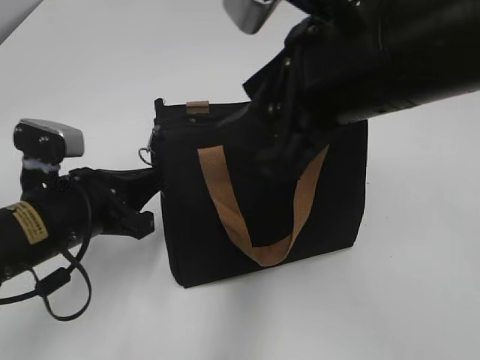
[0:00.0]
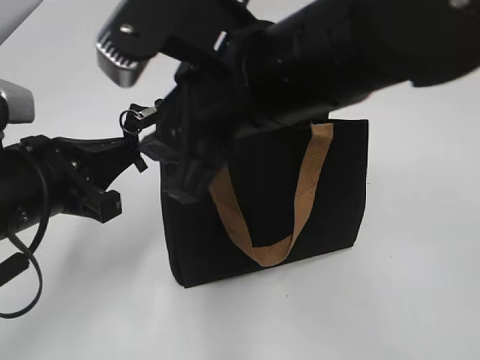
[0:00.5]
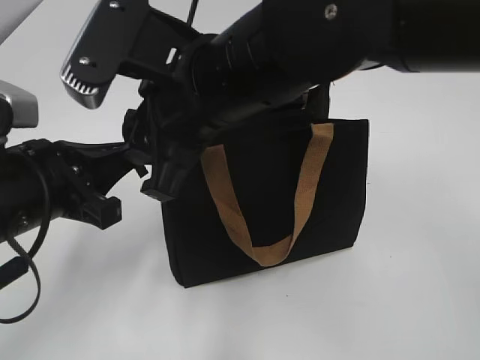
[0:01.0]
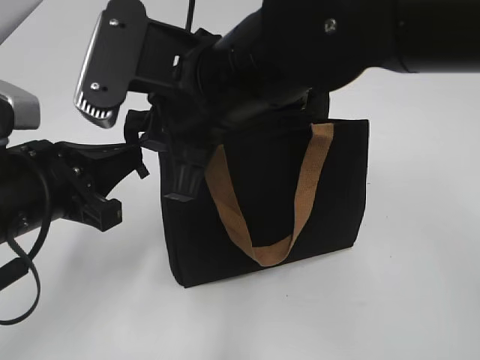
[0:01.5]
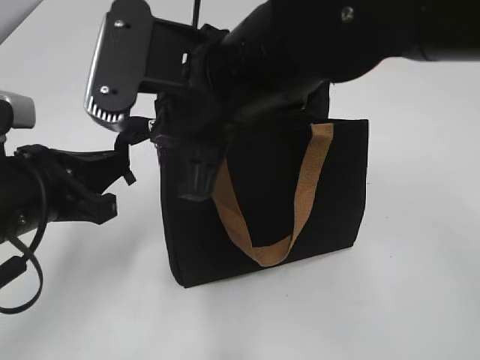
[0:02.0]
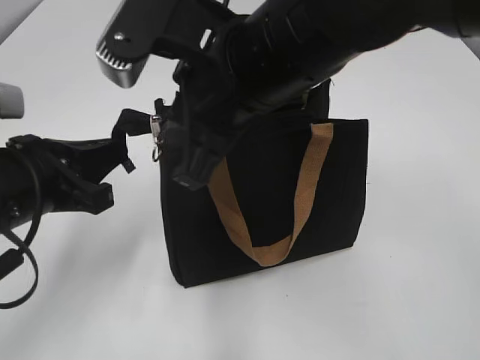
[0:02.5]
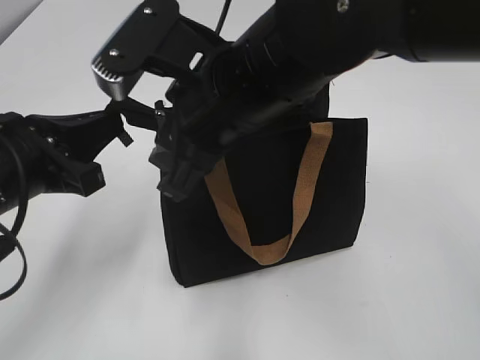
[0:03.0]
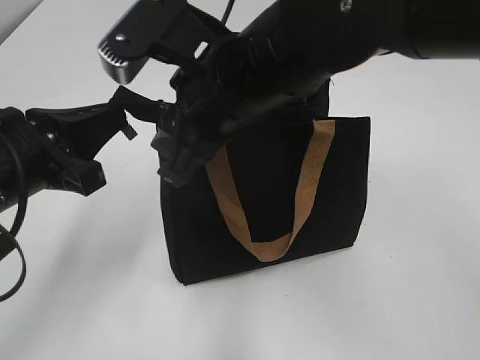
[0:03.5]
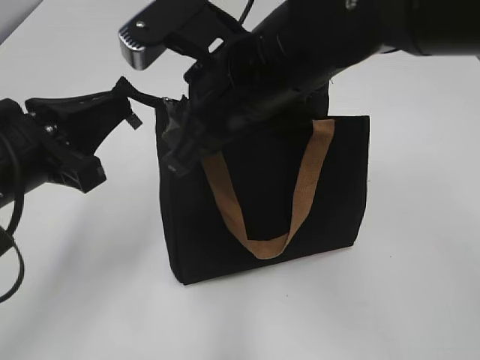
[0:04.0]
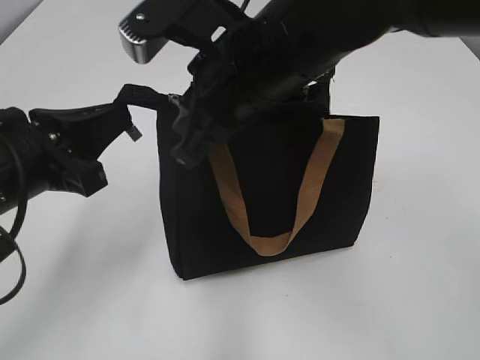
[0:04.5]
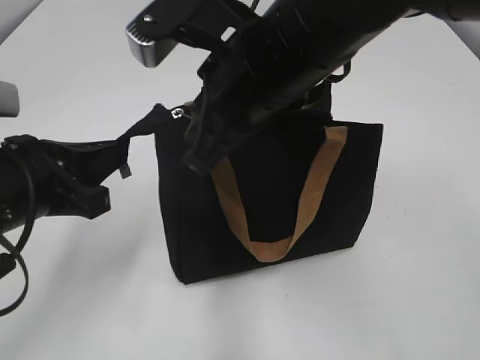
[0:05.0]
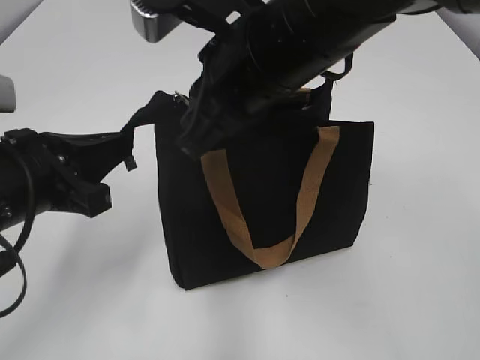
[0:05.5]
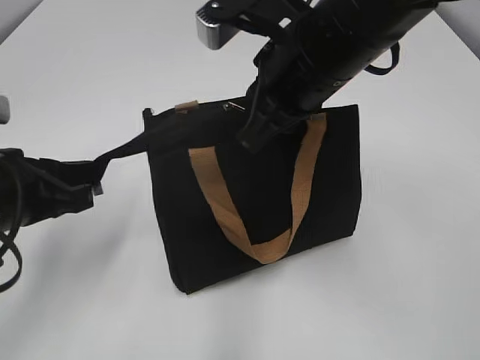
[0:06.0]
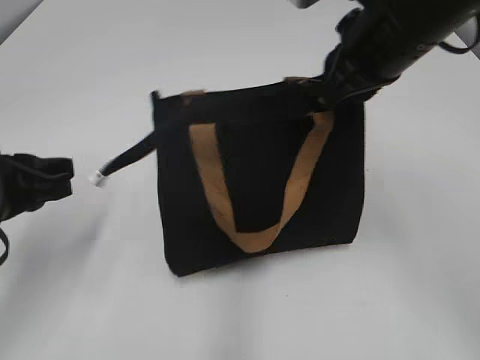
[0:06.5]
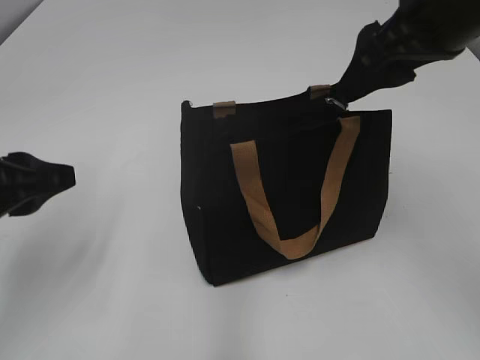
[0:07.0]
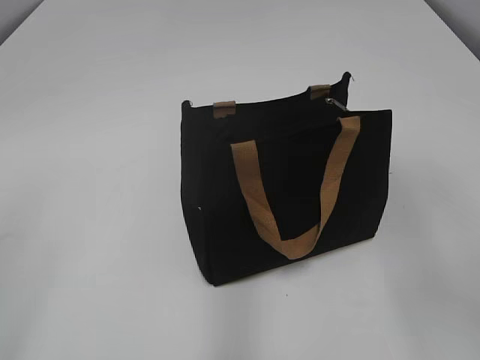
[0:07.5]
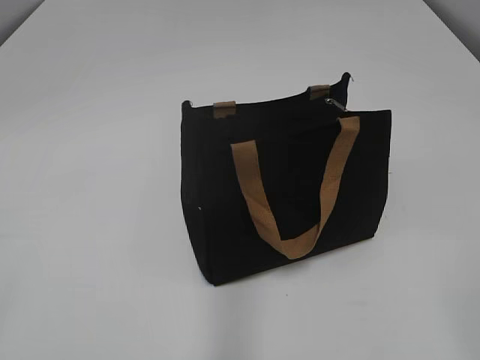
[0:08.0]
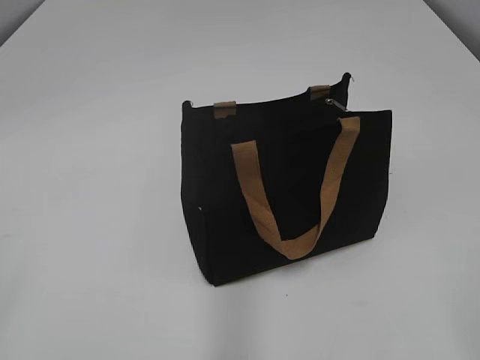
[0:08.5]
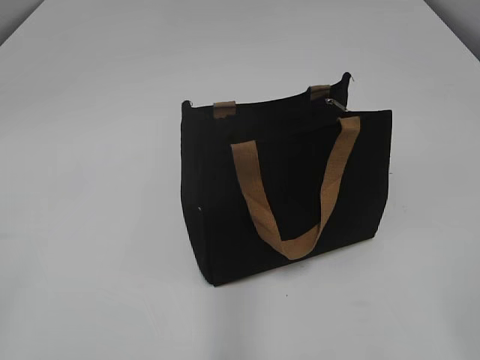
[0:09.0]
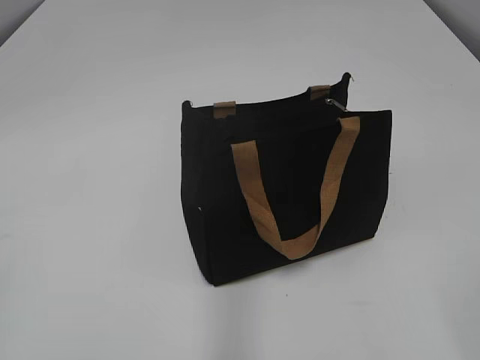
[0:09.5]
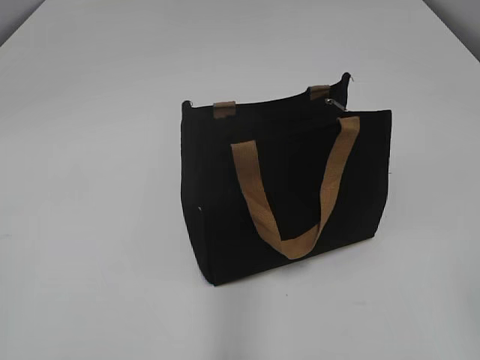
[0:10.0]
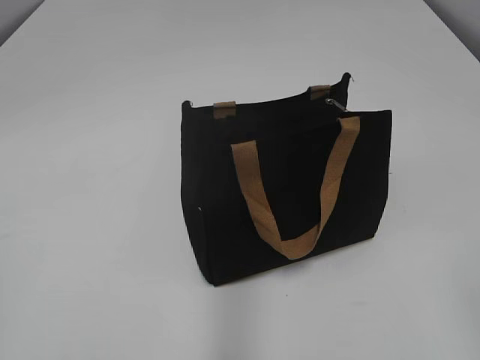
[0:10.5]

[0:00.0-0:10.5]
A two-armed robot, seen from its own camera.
Step, 0:00.0 to 0:06.5: Grab the zipper with your left hand.
0:00.0 to 0:02.0: The right gripper heads to the left, covering roughly 10 cm, and closes. The left gripper ends up roughly 5 cm from where it was.
0:02.0 to 0:04.0: The right gripper opens up.
0:04.0 to 0:06.5: The right gripper heads to the right, covering approximately 10 cm, and closes its fingers. Meanwhile the left gripper changes place by approximately 5 cm.
0:06.5 to 0:08.5: The left gripper moves backward, upward and to the left, approximately 25 cm, and opens. The right gripper is displaced backward and to the right by roughly 35 cm, and opens its fingers.
